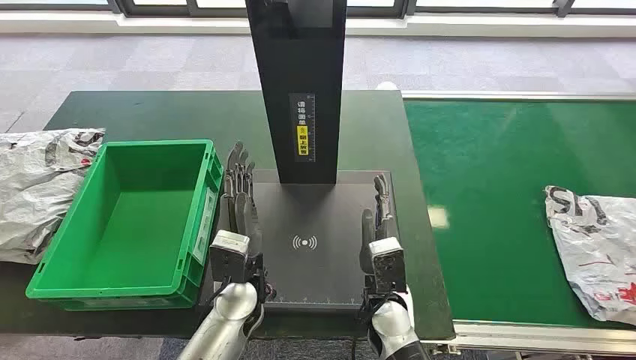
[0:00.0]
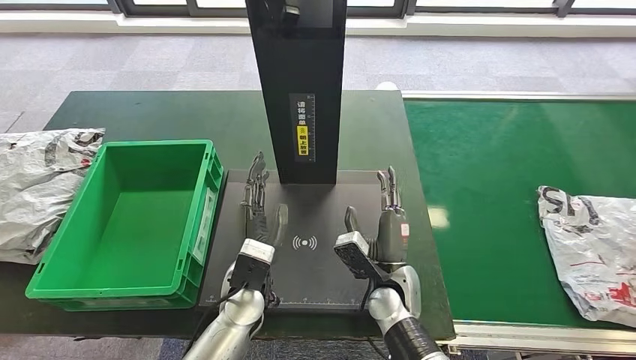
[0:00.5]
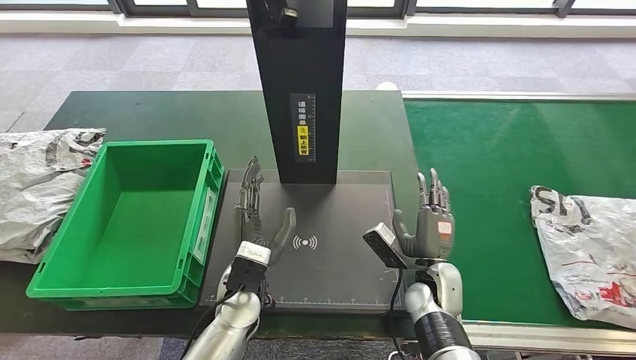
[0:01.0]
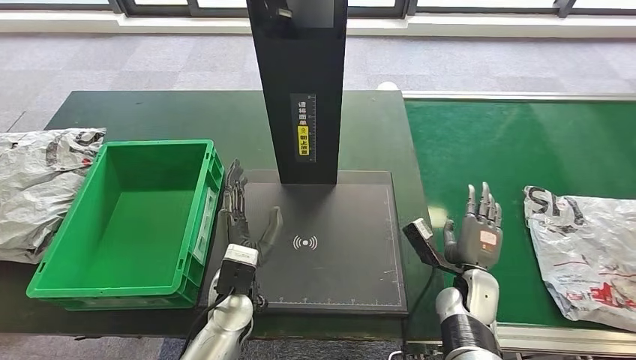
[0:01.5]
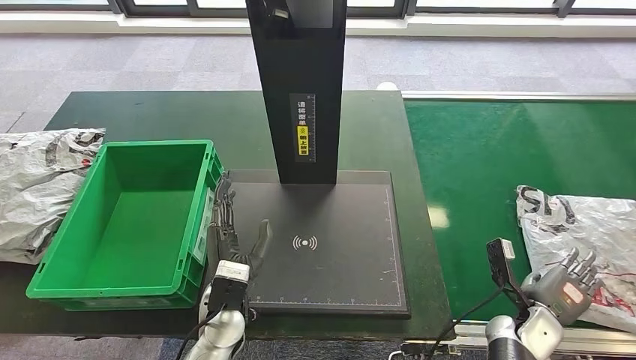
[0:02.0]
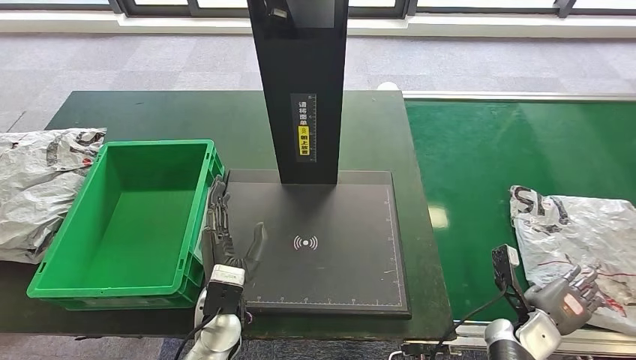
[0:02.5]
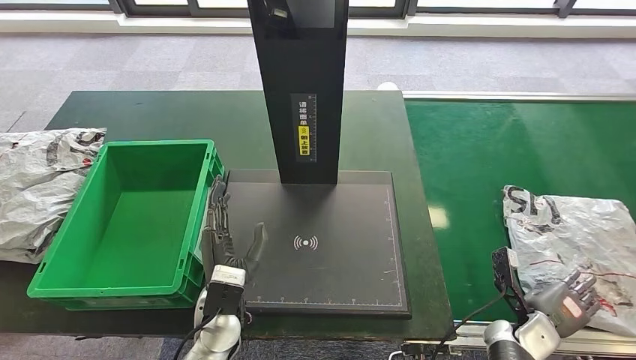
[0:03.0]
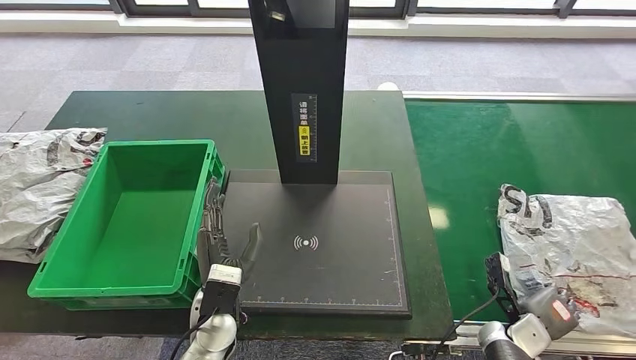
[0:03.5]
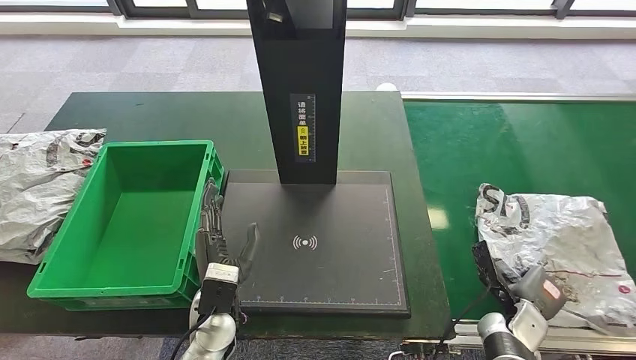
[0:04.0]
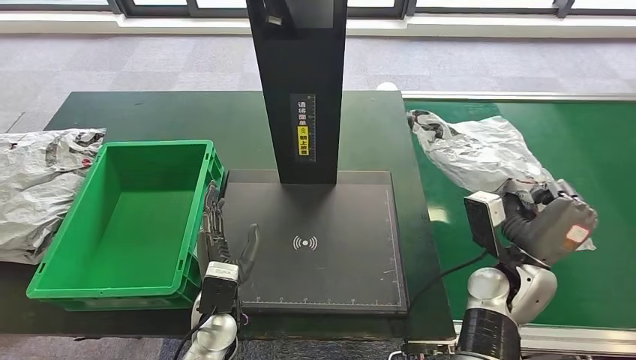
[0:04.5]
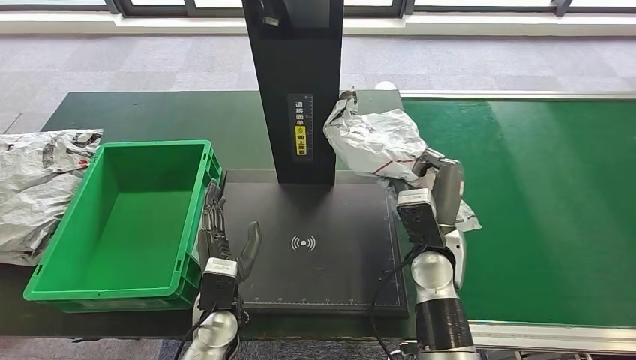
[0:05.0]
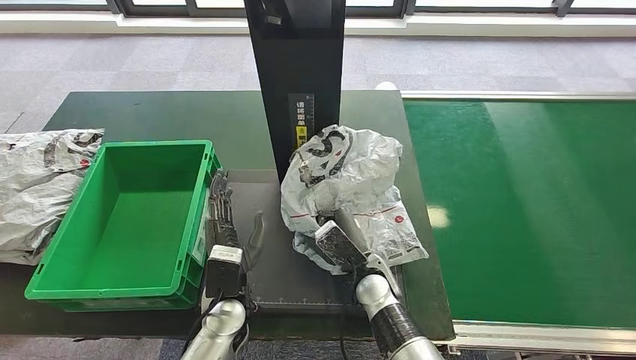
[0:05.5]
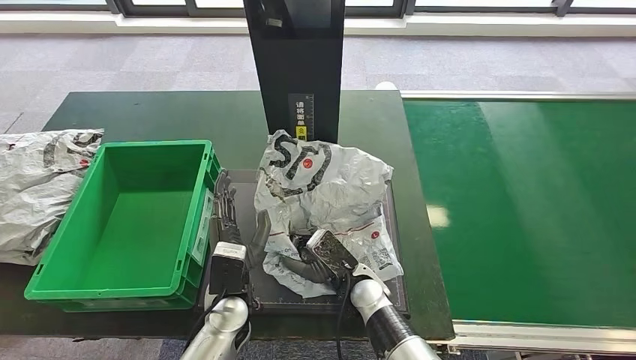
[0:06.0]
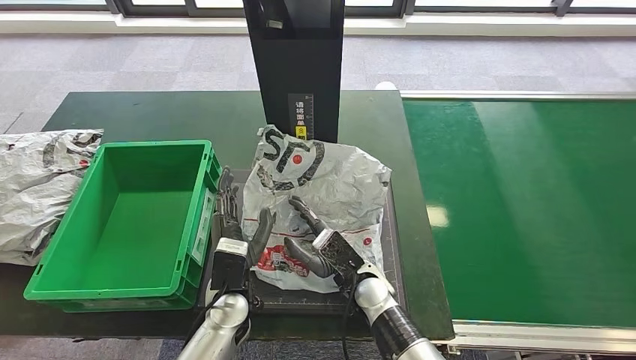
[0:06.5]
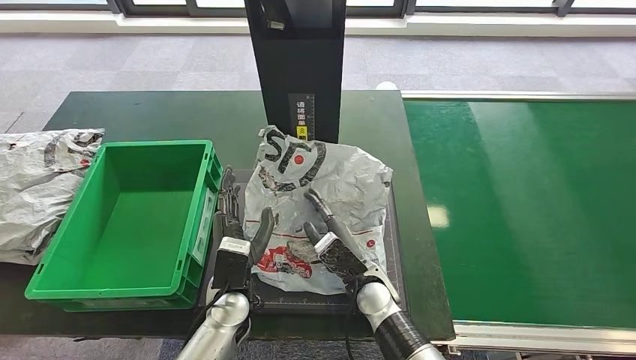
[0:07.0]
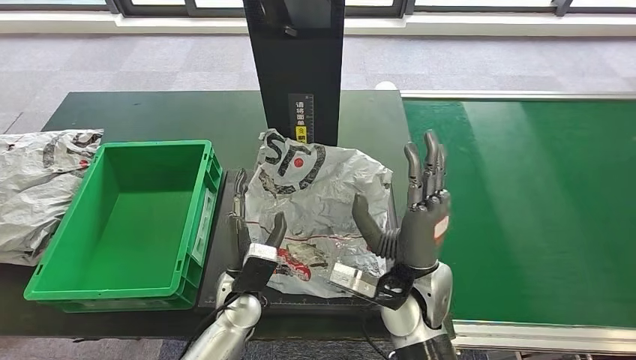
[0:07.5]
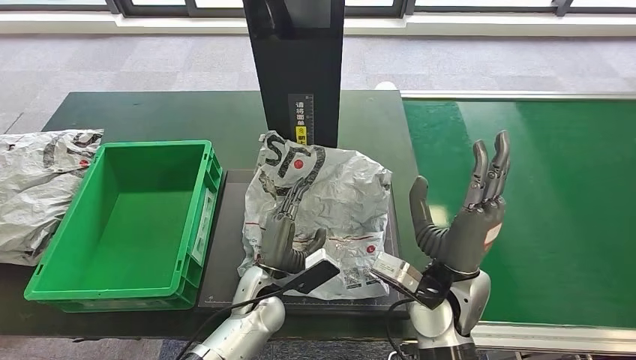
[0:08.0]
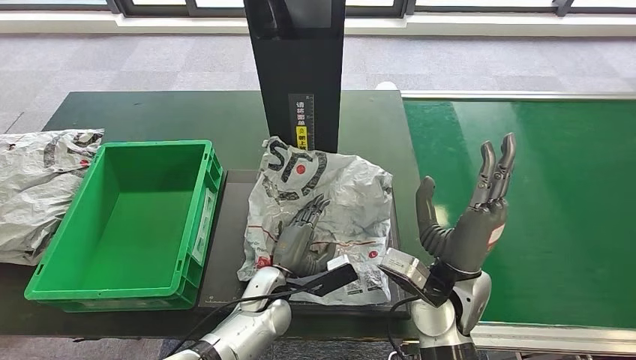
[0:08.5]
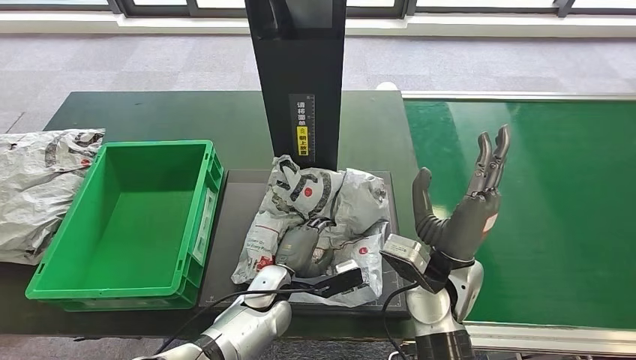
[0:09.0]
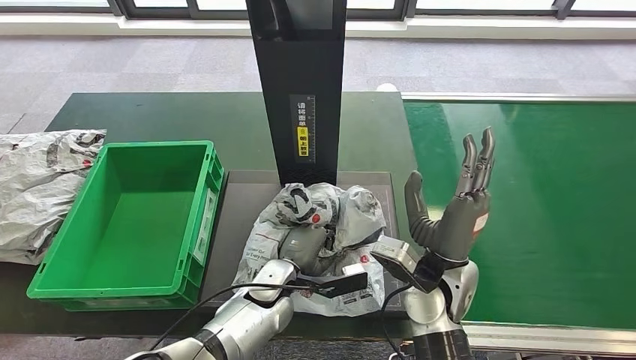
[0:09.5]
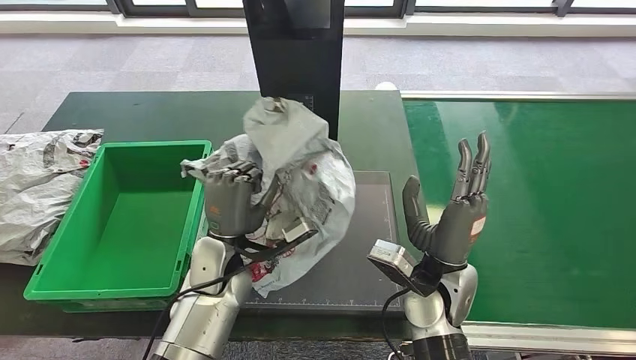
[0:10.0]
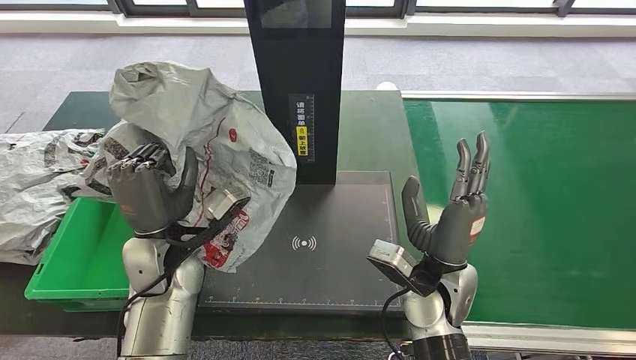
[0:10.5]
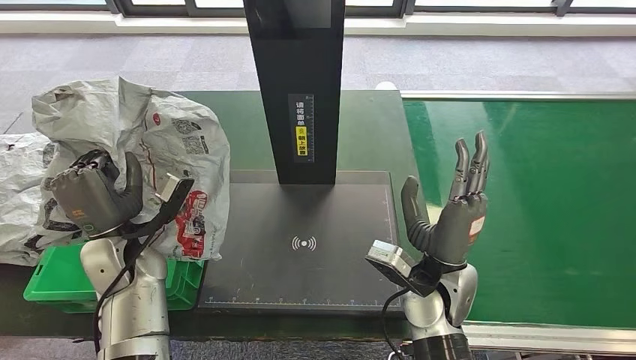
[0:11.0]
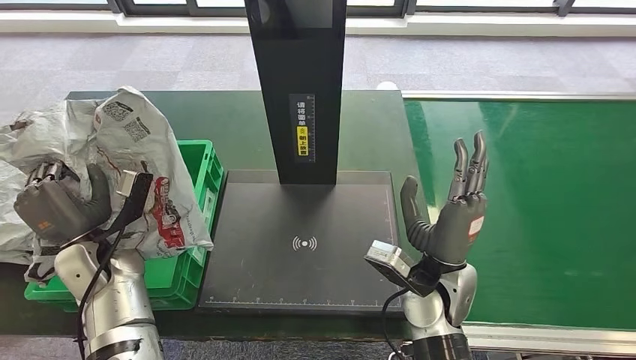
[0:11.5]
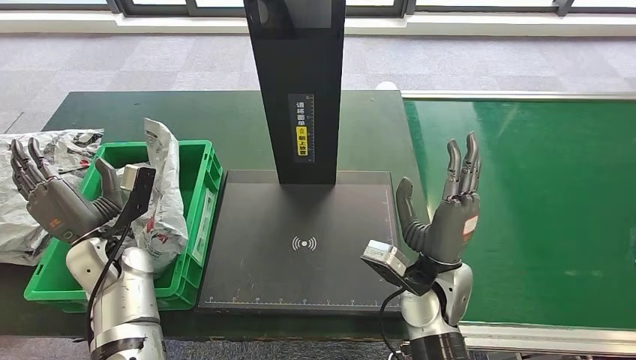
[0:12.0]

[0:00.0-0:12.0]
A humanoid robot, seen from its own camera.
Step, 0:00.0 to 0:04.5: Take the parcel off the conveyor belt.
Step, 0:05.0 to 0:07.5: Place the parcel onto the inbound machine.
Step, 0:08.0 to 0:10.0: Pick up the parcel from the inbound machine.
0:06.0 to 0:08.0: The right hand travels upward and to the right by about 15 cm.
0:08.0 to 0:10.0: The left hand shifts some 10 cm upward.

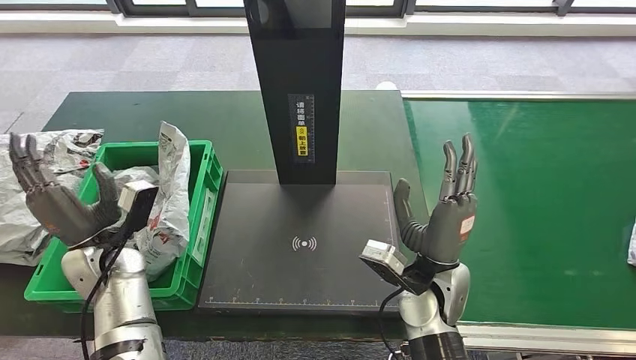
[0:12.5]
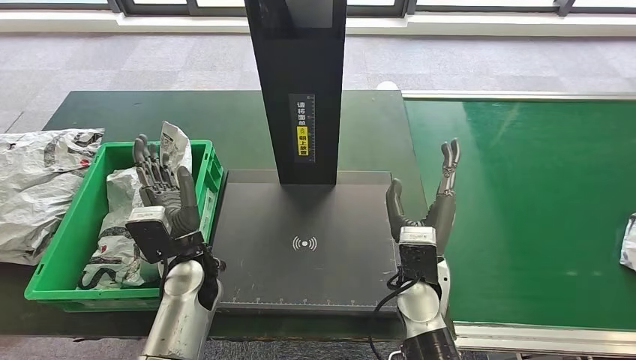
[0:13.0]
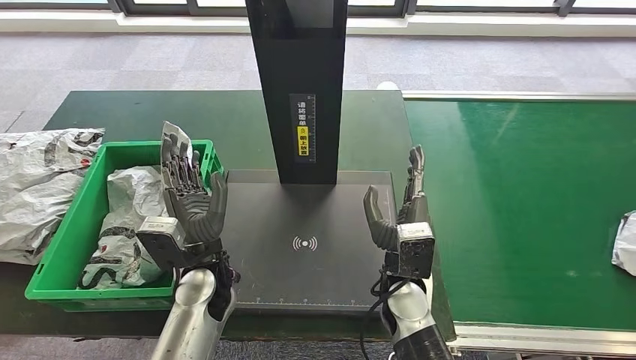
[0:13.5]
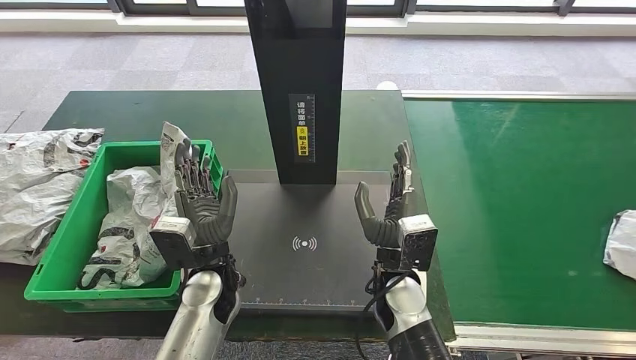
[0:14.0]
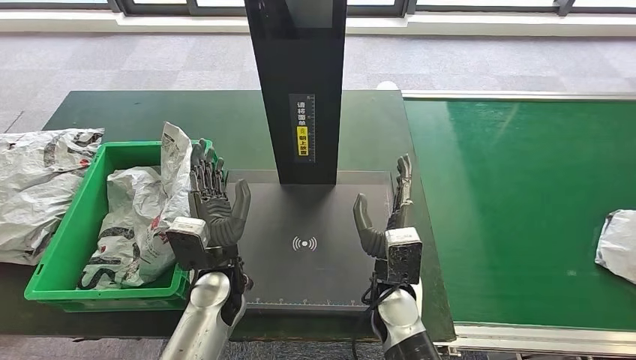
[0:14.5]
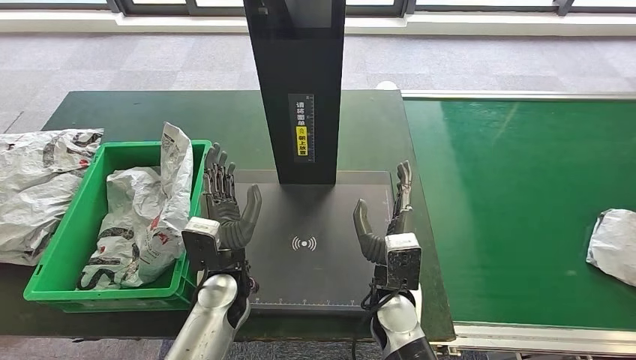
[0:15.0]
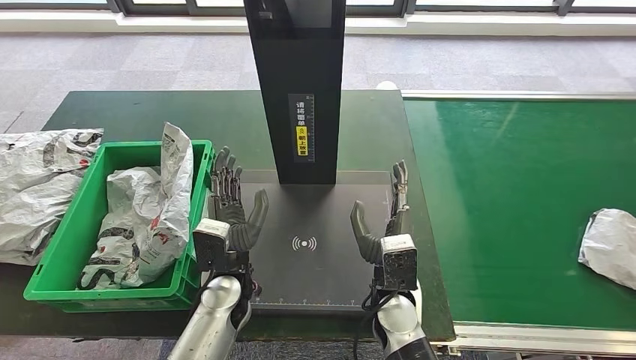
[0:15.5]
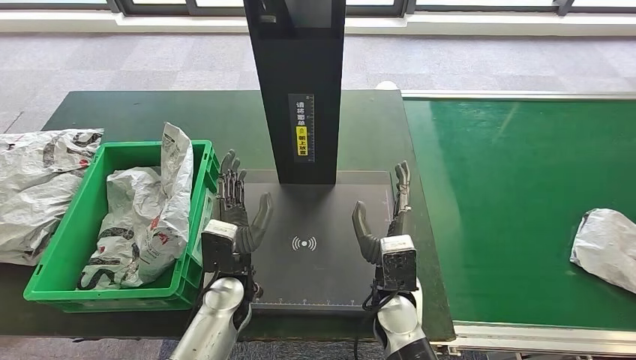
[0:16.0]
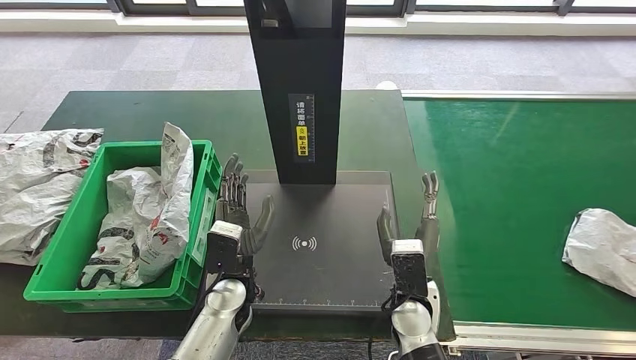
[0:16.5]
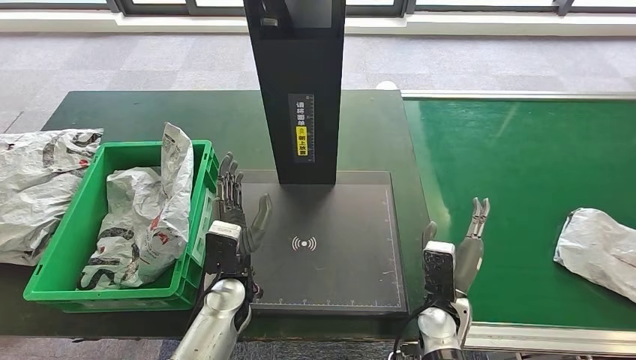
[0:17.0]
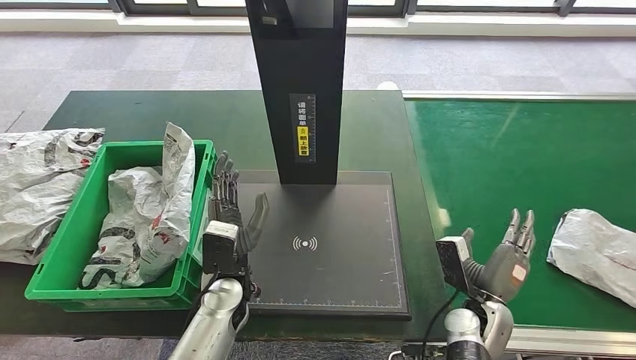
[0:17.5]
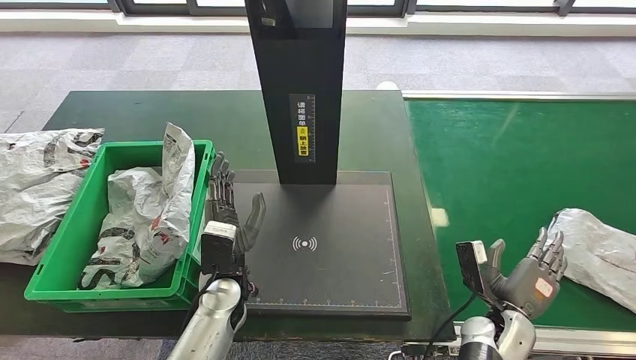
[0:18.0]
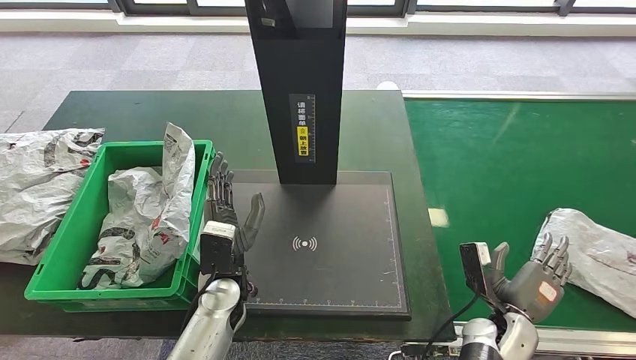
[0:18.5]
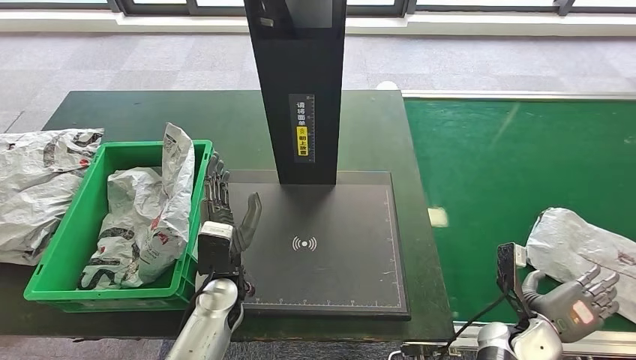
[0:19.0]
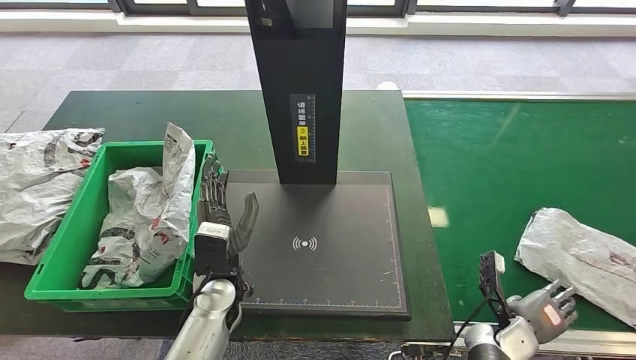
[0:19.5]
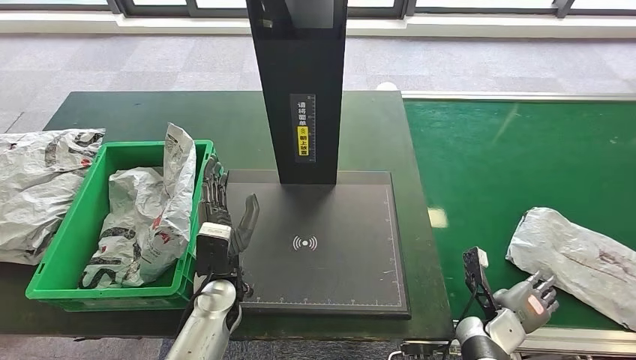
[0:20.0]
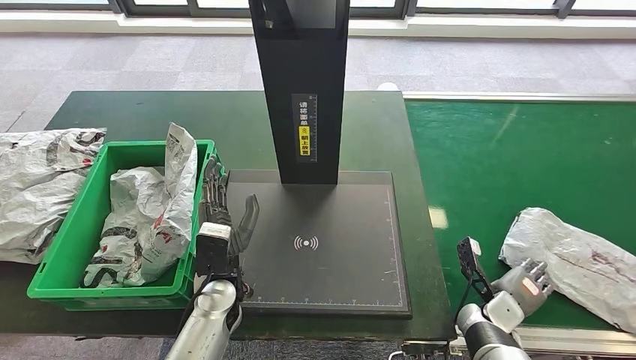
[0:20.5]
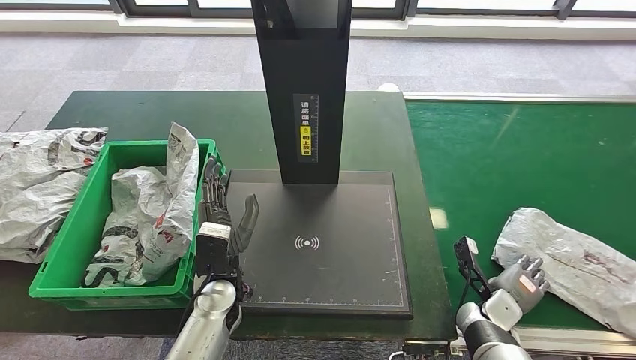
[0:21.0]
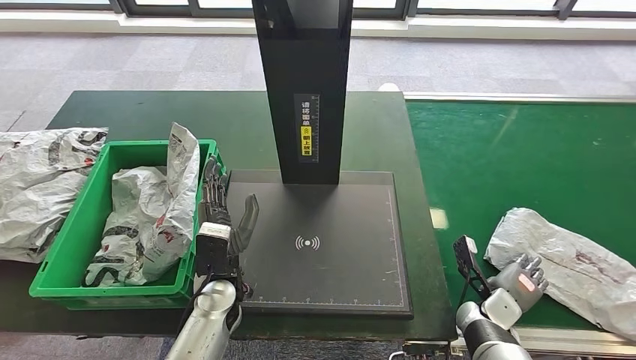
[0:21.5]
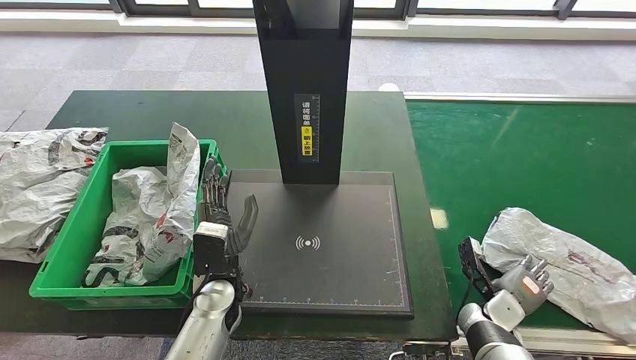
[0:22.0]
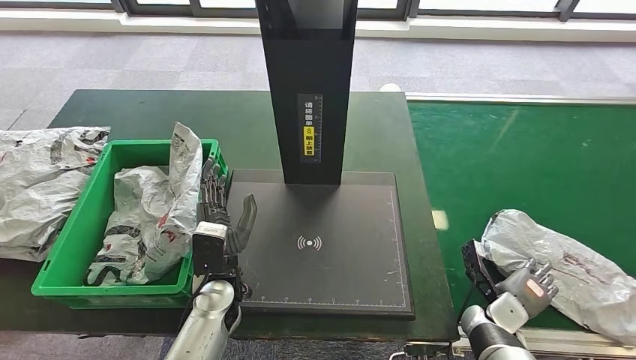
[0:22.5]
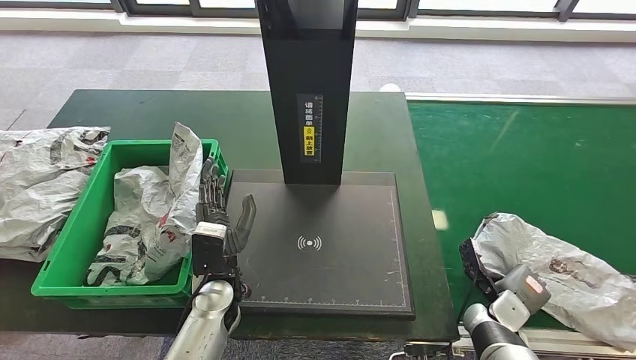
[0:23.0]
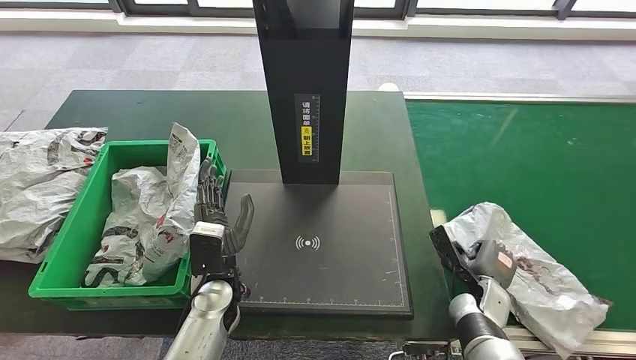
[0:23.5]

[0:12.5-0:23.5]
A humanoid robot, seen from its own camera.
0:12.5 to 0:14.5: The left hand heads to the right, covering some 20 cm, while the right hand travels to the left by about 5 cm.
0:14.5 to 0:16.0: The hands move only a little.
0:16.0 to 0:18.0: The right hand heads to the right, covering approximately 20 cm.
0:18.0 to 0:20.0: The right hand moves about 5 cm.
0:20.0 to 0:21.5: The hands make only small movements.
